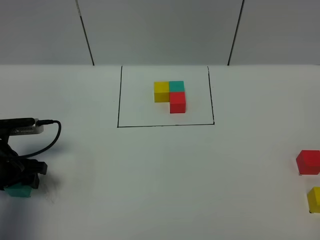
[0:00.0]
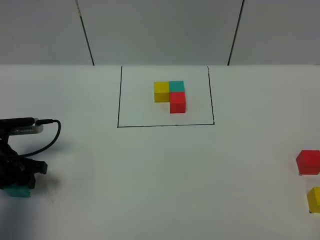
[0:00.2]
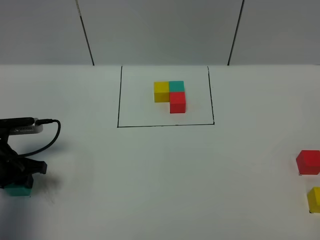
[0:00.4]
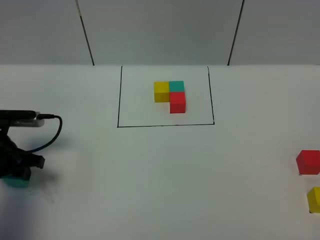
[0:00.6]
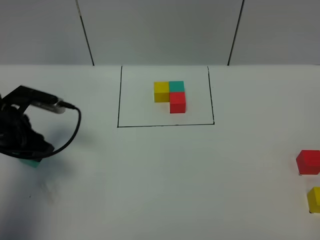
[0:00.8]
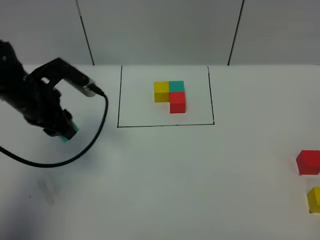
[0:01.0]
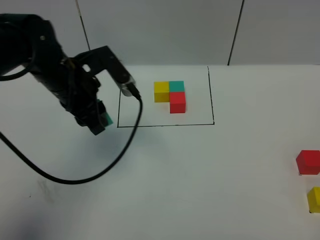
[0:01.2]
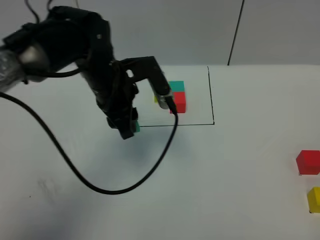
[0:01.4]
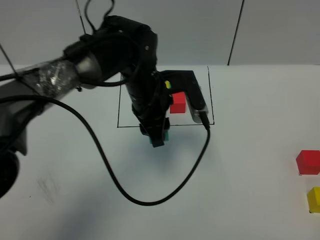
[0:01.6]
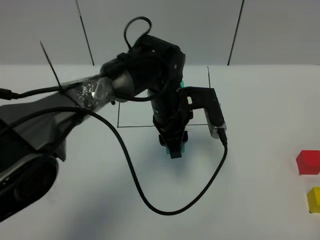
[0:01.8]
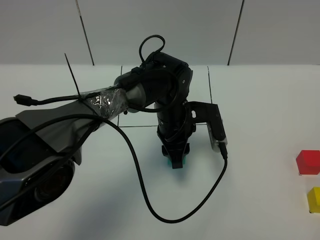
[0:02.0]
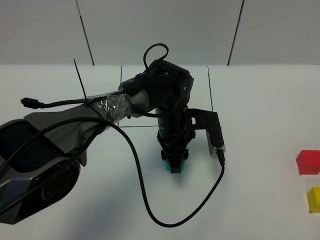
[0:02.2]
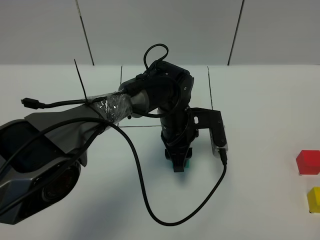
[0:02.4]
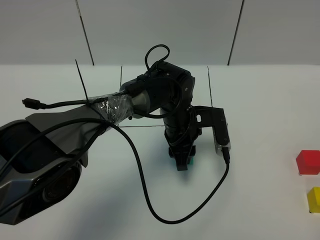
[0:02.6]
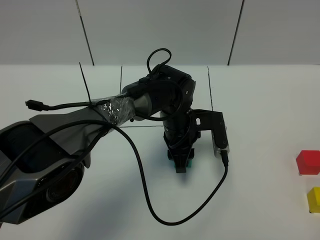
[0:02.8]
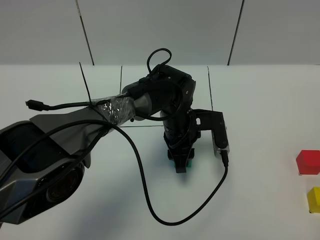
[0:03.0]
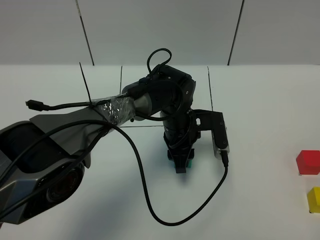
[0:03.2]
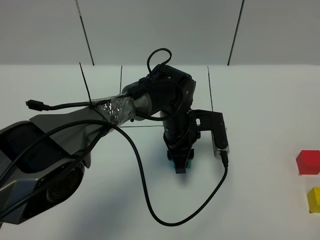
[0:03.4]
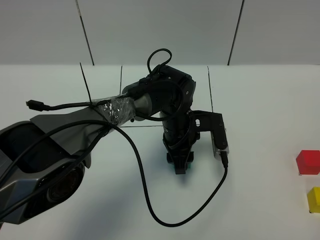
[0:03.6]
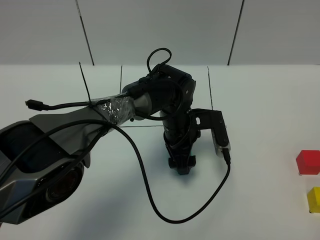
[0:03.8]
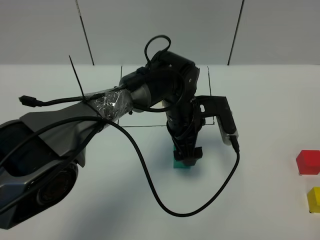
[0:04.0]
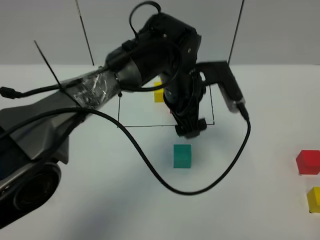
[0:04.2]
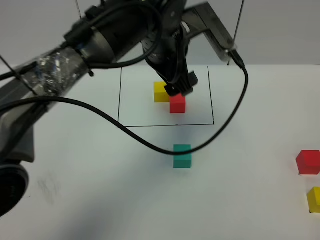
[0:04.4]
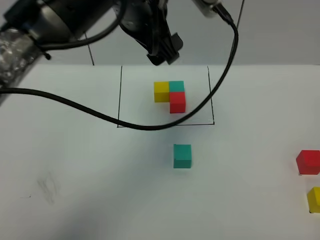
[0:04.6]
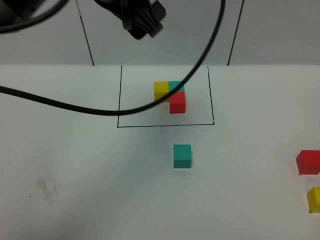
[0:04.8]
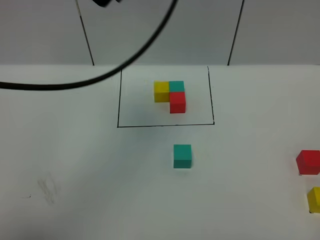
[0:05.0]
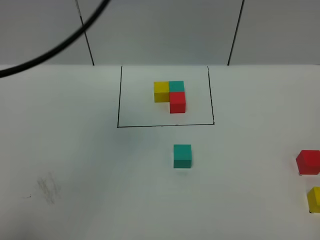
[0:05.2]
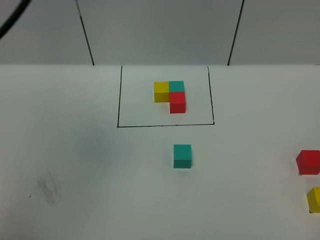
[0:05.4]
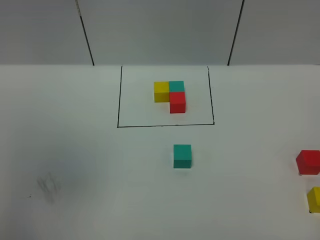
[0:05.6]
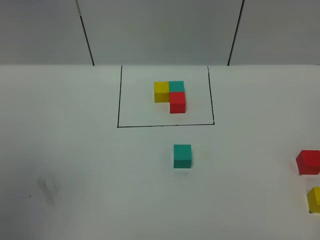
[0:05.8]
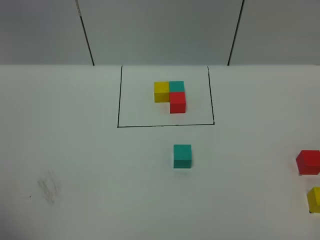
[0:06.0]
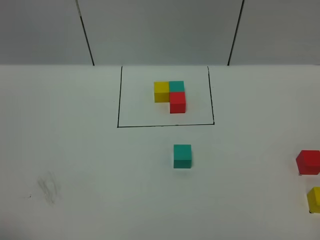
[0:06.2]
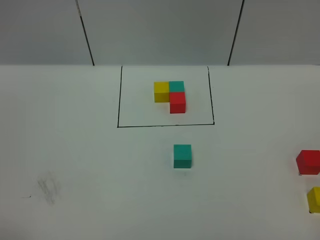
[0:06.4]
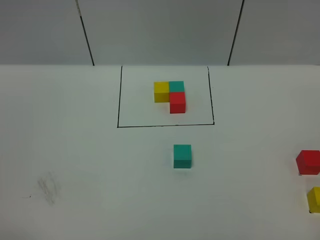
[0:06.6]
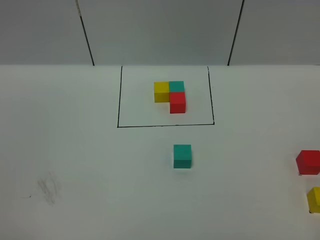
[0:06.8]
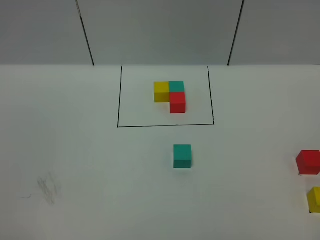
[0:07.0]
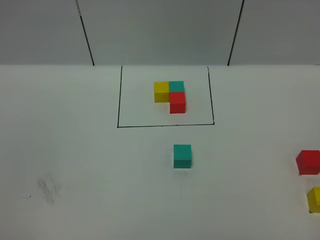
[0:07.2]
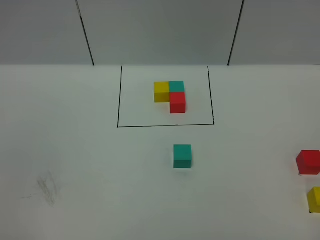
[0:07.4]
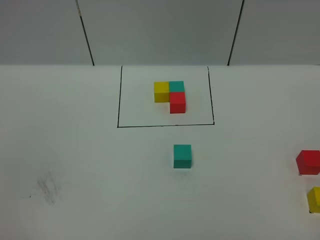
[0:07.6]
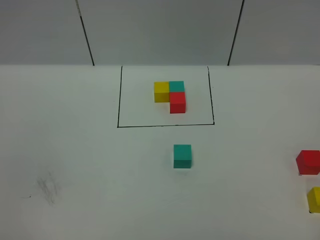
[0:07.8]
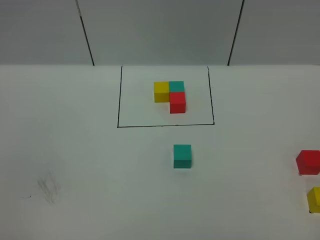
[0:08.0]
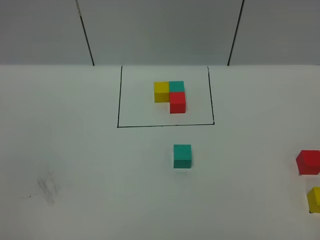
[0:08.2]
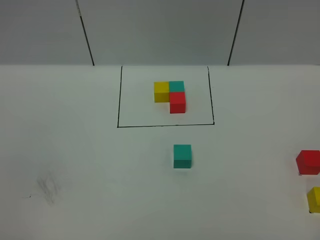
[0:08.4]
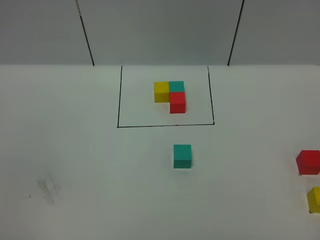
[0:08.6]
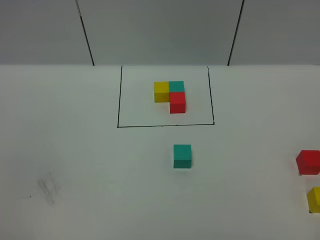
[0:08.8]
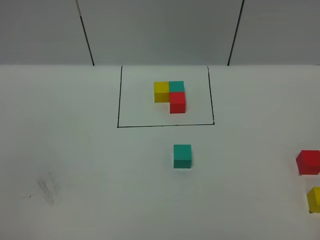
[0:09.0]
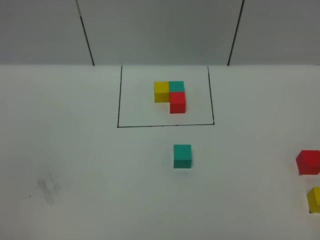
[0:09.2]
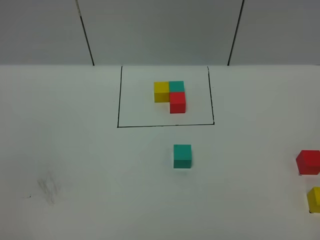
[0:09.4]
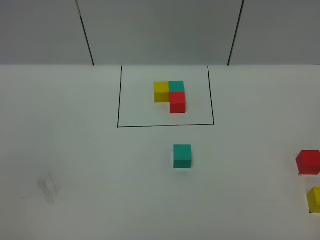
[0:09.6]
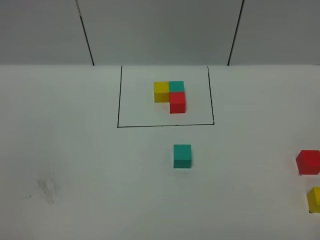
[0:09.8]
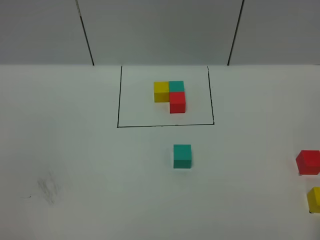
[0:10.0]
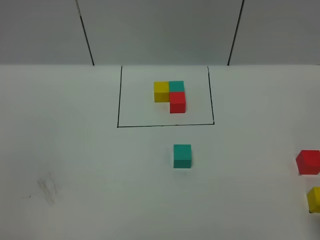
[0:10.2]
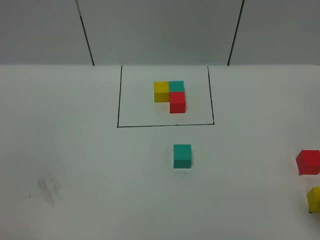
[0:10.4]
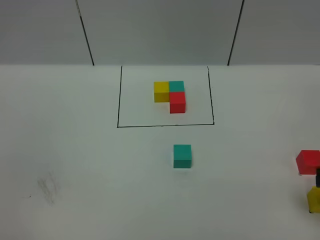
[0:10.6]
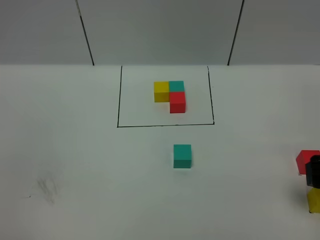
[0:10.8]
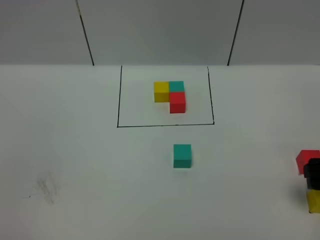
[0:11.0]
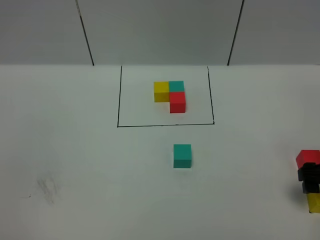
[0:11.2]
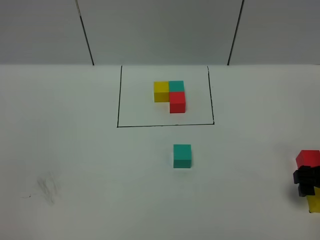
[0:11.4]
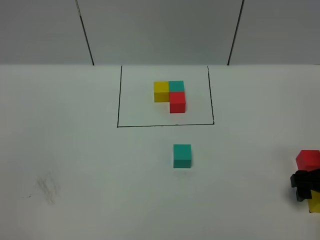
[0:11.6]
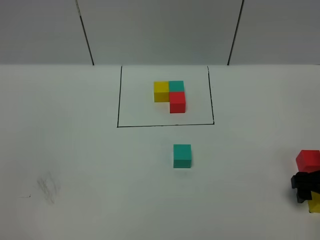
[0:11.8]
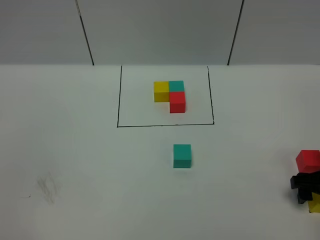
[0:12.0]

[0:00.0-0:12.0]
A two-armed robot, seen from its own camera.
Task of the whole recording: According to the building block template in front, assemble the scattered blocks together.
Step, 0:00.0 to 0:04.2: Put the green cube in the center of the table.
0:00.0 to 0:01.6: The left gripper travels to the right by some 30 cm, and closes.
0:01.6 to 0:03.0: The left gripper is displaced downward and to the right by some 10 cm.
0:03.0 to 0:04.4: The left gripper shifts roughly 20 cm upward, and opens.
0:04.4 to 0:06.0: The left gripper heads to the left, backward and upward, covering some 50 cm.
0:07.6 to 0:09.0: The two grippers keep their place.
0:10.4 to 0:12.0: The right gripper moves downward and forward, about 15 cm.

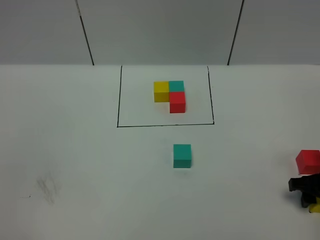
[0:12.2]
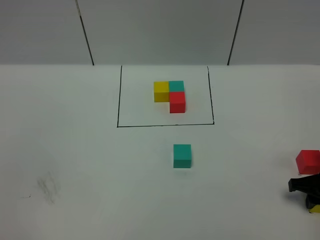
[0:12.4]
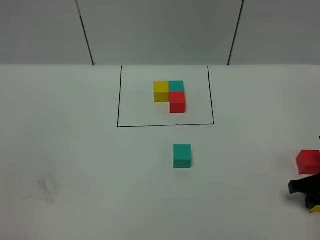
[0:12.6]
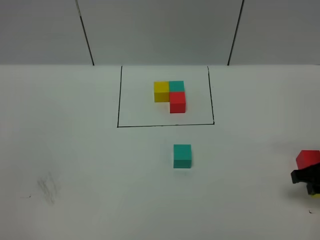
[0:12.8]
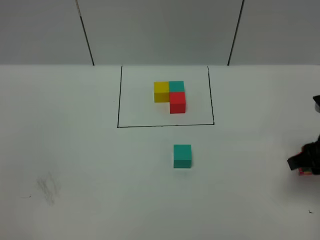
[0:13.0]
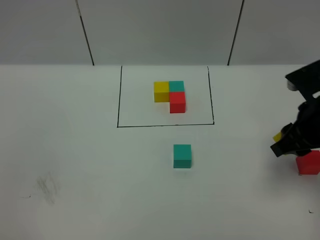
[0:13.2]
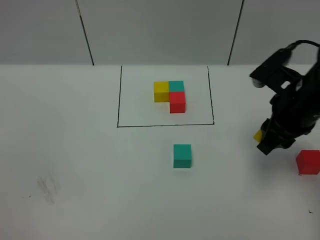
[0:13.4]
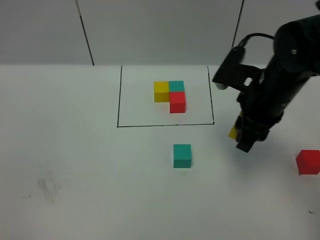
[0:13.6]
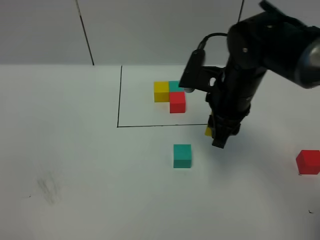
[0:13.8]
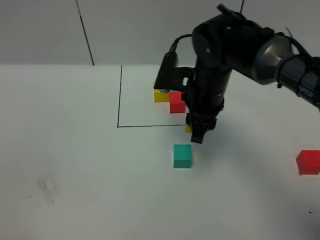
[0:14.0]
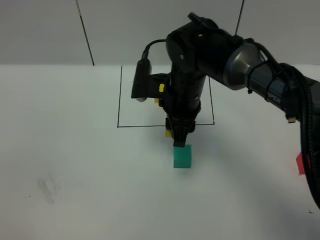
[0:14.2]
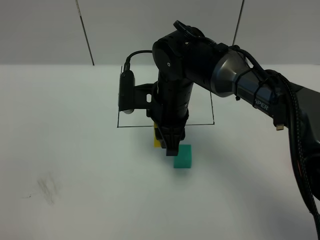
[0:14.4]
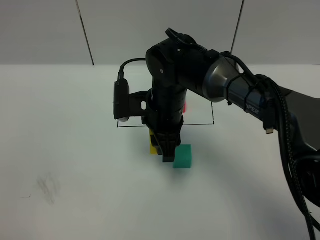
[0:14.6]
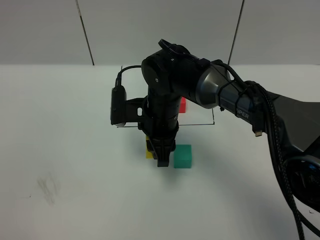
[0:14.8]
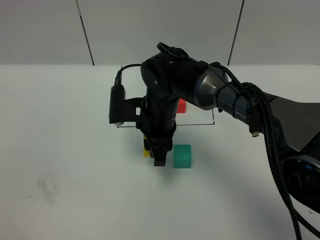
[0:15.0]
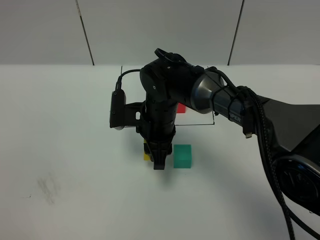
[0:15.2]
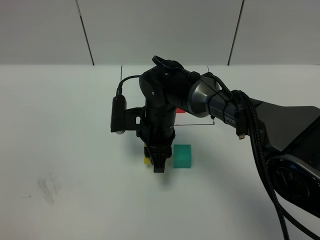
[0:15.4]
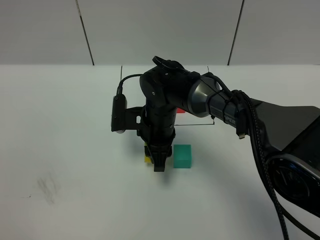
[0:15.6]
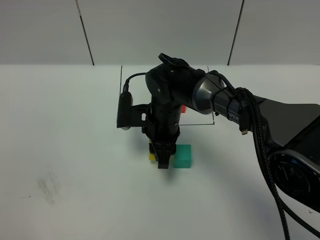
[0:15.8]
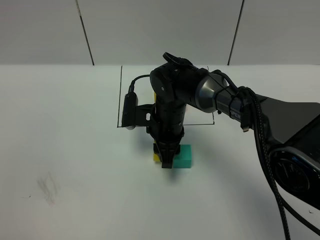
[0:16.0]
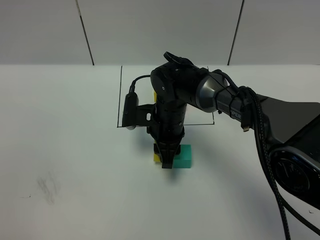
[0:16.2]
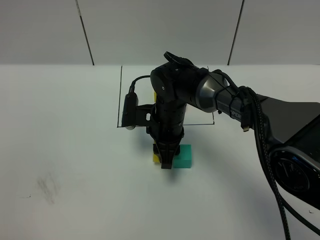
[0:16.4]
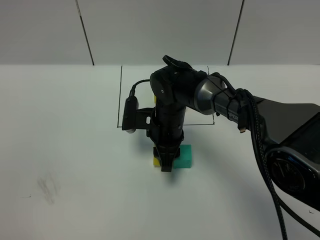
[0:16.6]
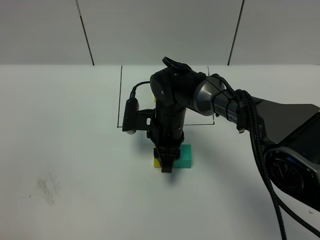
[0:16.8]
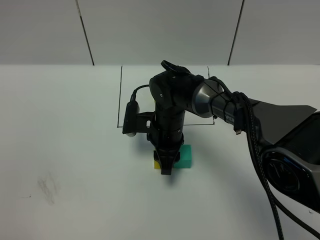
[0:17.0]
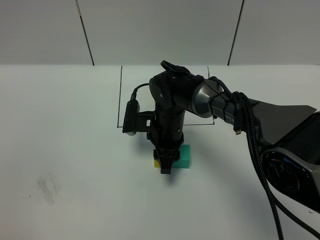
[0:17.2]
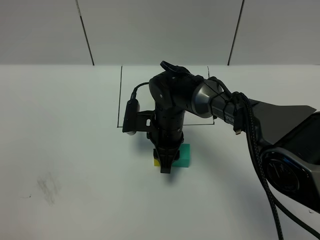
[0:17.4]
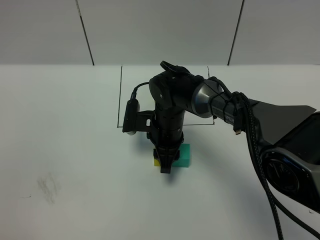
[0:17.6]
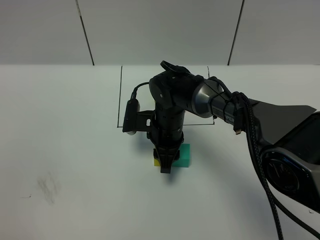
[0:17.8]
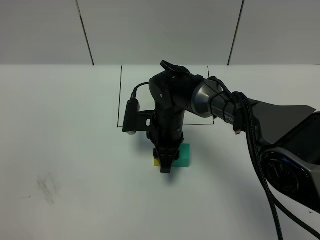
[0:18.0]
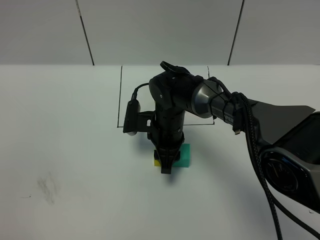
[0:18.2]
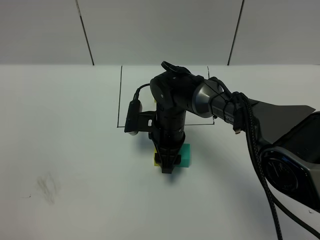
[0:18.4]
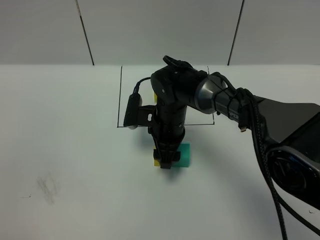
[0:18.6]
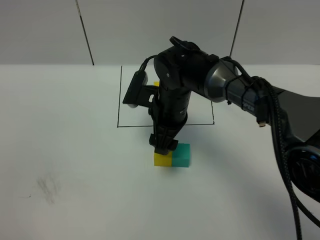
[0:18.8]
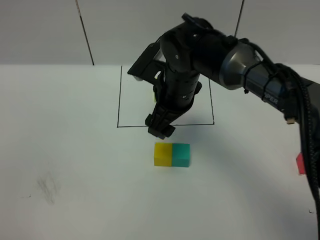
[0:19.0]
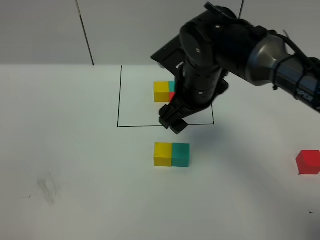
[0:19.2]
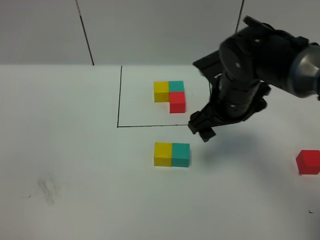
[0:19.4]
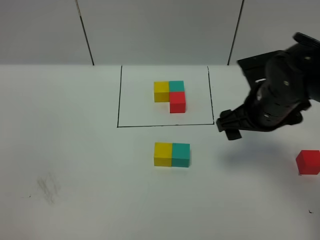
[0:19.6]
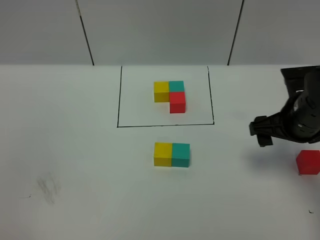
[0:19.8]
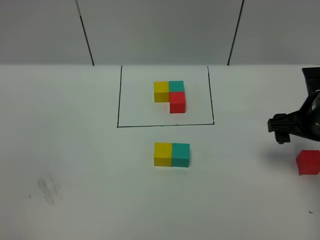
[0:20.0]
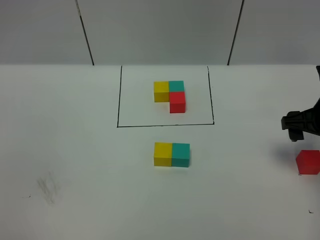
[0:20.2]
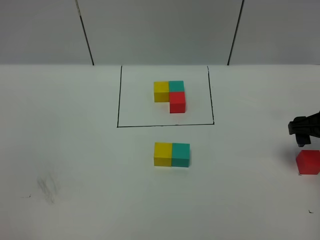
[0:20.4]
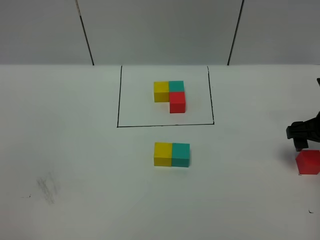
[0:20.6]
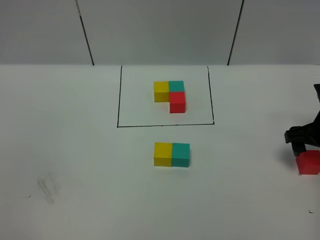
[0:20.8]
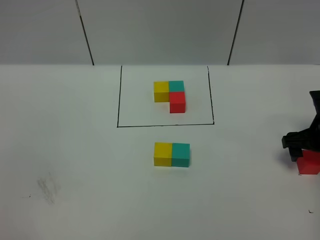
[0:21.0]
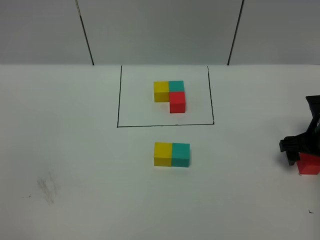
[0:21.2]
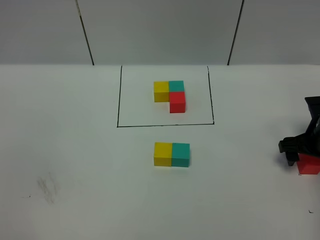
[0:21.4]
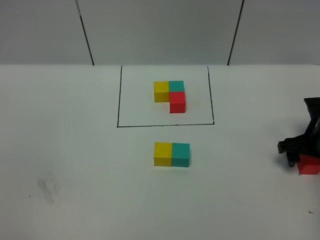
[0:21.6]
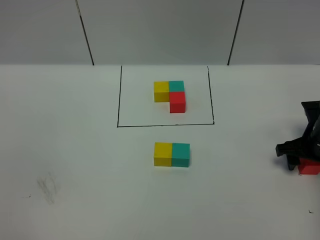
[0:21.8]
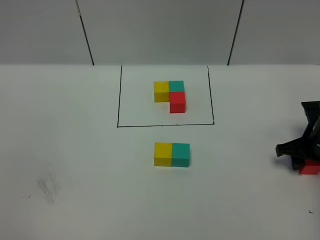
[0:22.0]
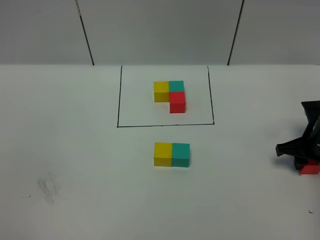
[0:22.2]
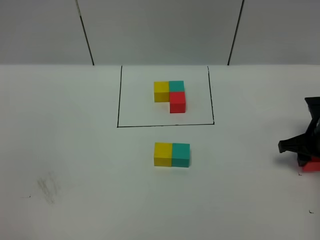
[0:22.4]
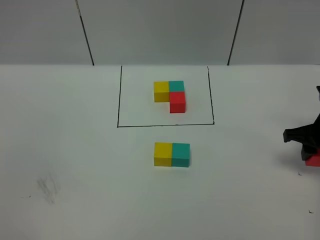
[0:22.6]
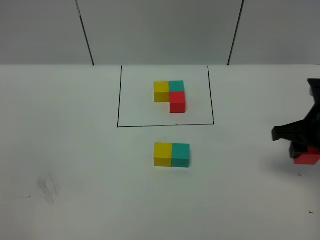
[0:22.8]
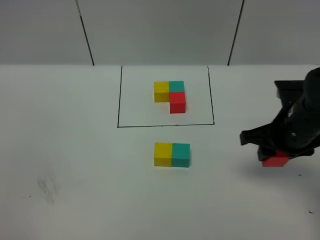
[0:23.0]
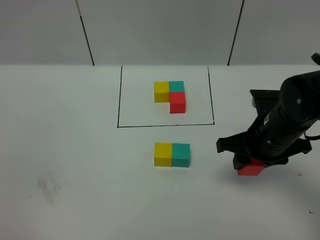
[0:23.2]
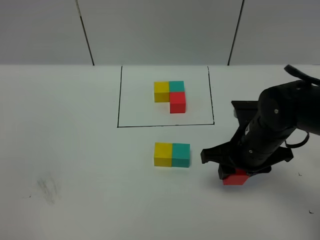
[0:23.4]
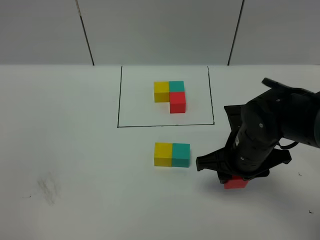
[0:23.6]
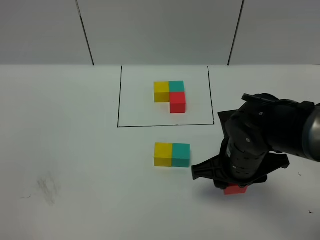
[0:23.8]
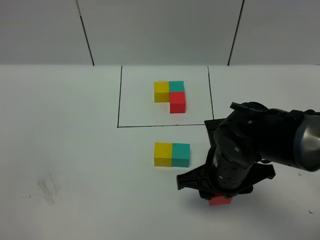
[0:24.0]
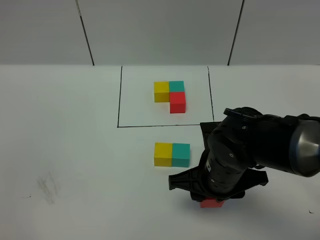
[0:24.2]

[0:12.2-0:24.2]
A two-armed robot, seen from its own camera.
Task of the whole recording: According to the building block template in front, assemble the scattered blocks together.
0:12.2 to 0:13.8: The right gripper moves to the left and upward, some 25 cm.
0:13.8 to 0:15.2: The right gripper shifts roughly 15 cm to the left and downward.
0:15.2 to 0:16.6: The grippers move only a little.
0:16.6 to 0:18.2: Both grippers stay put.
0:18.2 to 0:19.8: The right gripper travels to the right and upward by approximately 25 cm, and opens up.
0:19.8 to 0:21.2: The right gripper shifts some 10 cm downward and to the right.
0:21.2 to 0:22.6: The right gripper travels upward by some 5 cm, and closes up.
0:22.6 to 0:24.2: The right gripper travels to the left and backward by approximately 25 cm.
